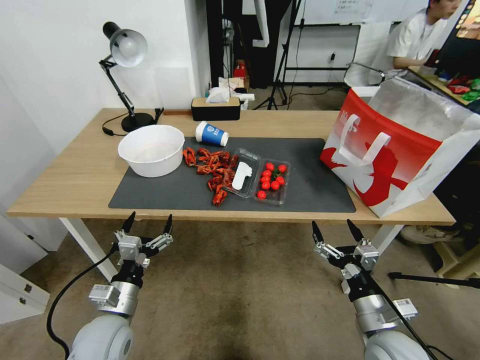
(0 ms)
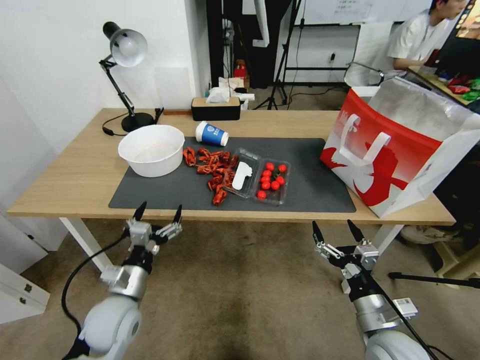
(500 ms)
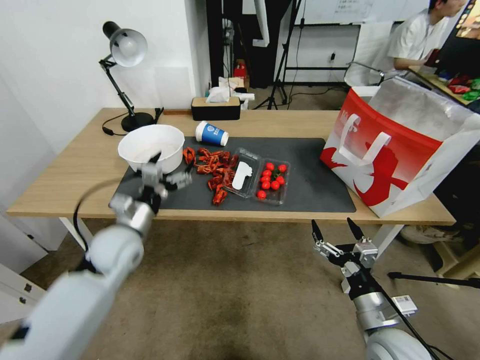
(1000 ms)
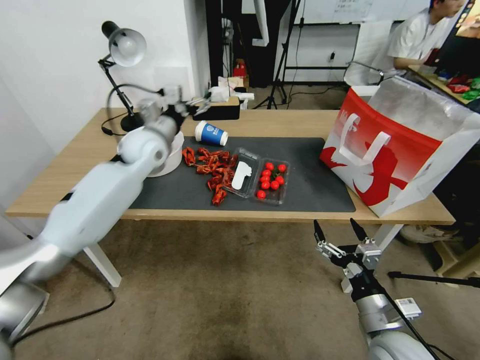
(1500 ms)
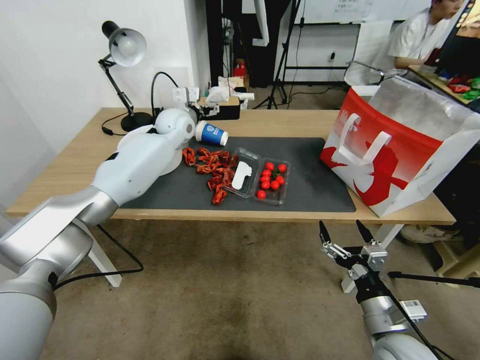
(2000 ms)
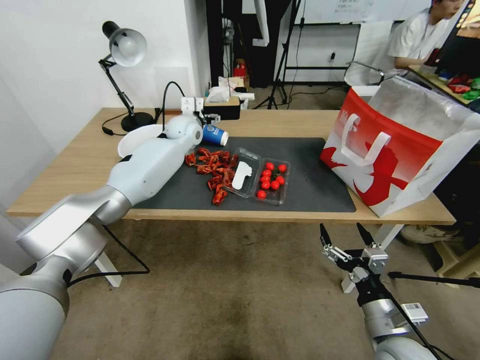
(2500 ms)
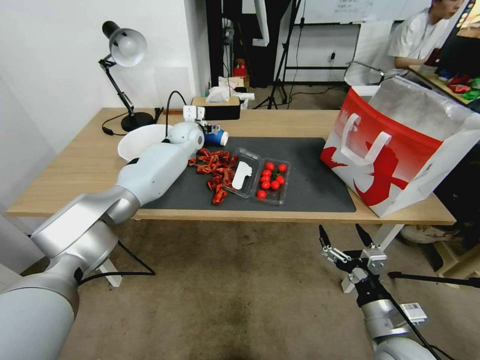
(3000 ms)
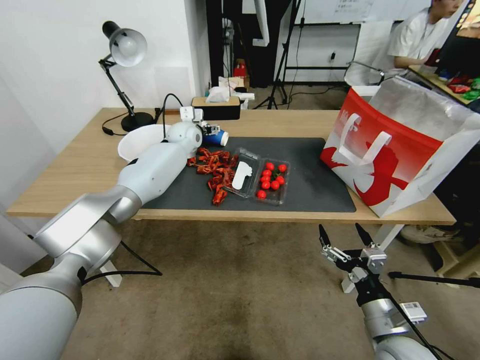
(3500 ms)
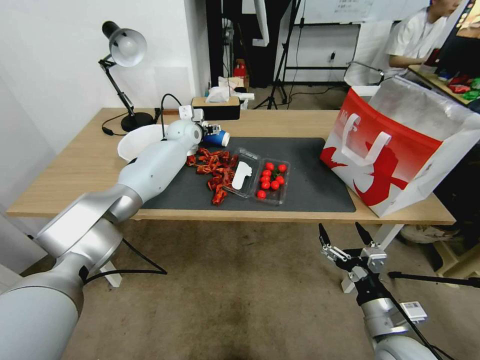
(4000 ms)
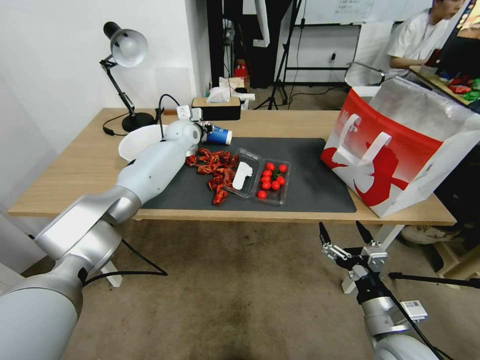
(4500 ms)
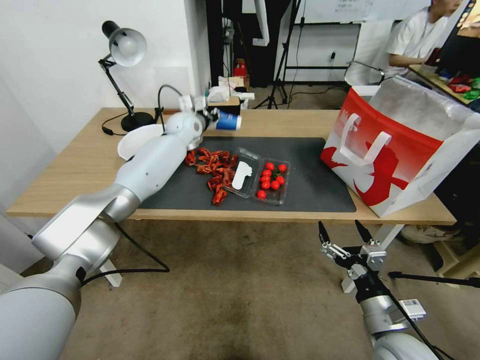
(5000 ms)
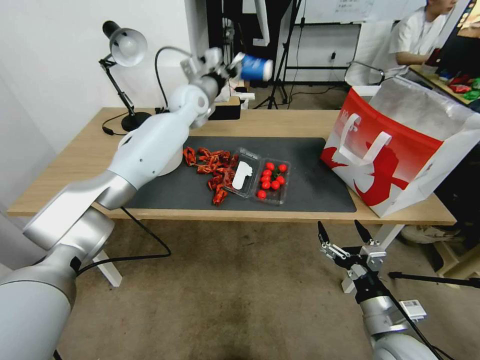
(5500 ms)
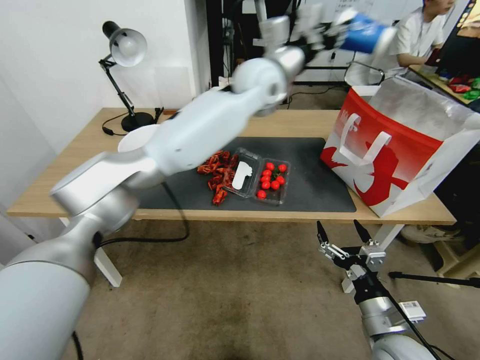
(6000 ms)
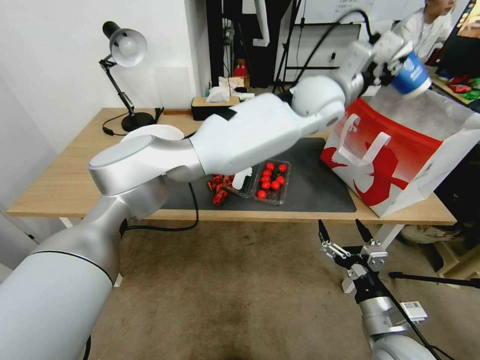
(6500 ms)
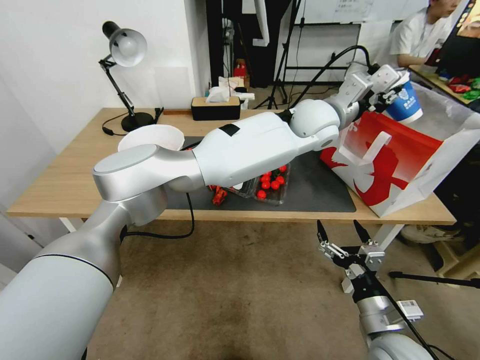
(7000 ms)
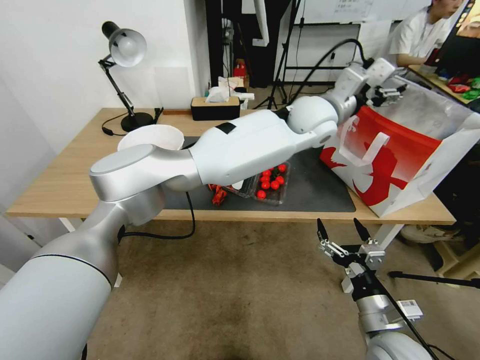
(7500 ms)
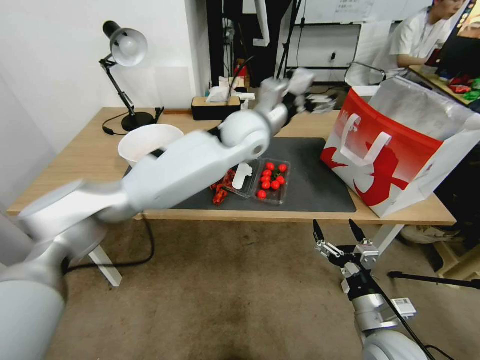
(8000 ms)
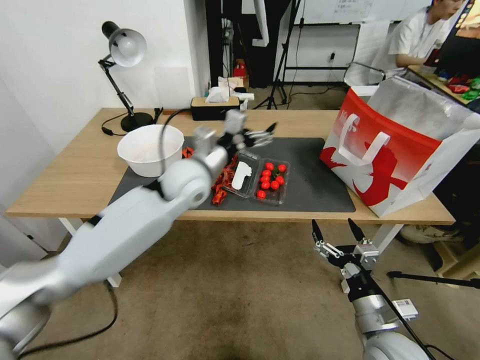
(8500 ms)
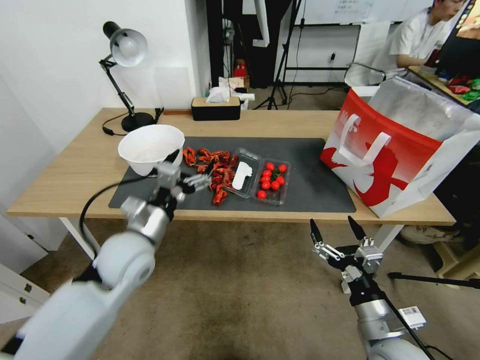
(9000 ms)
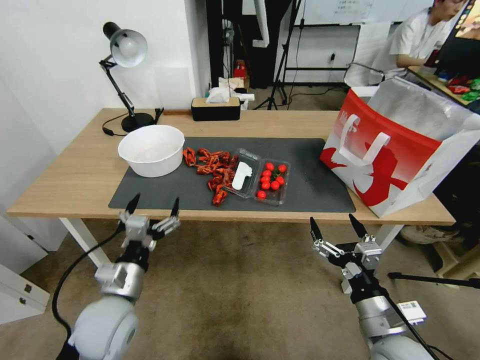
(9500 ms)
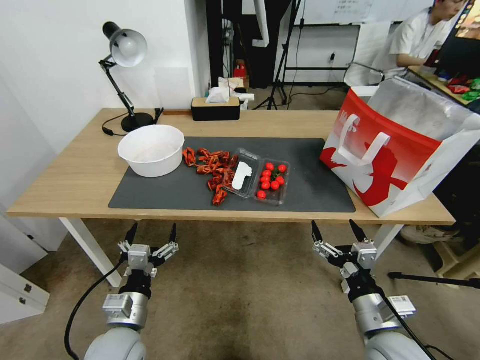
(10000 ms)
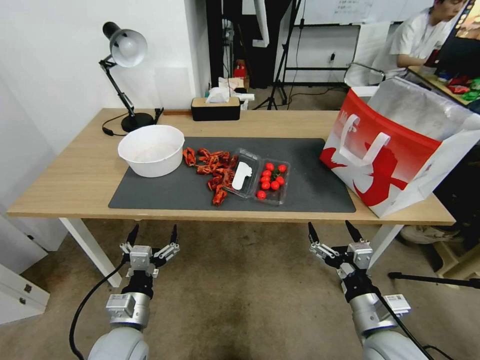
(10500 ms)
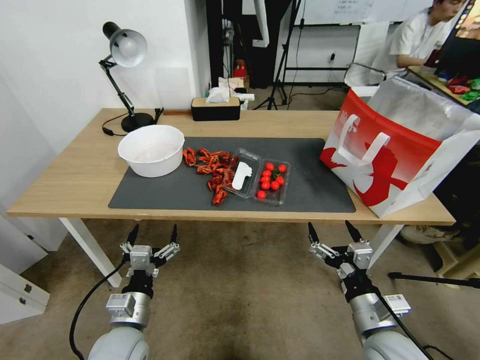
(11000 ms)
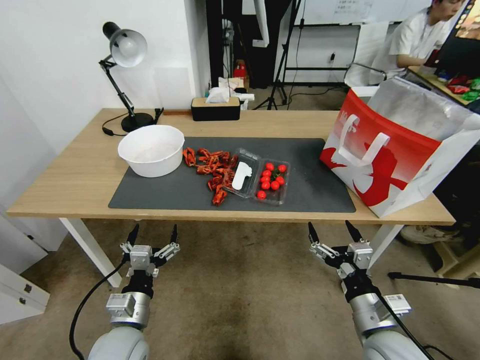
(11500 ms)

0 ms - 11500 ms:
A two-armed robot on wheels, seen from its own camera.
0 ms - 2000 ms: The left gripper shifts about 50 cm forward and upward.
2000 ms - 4000 ms: The left gripper heads downward, covering some 5 cm.
4000 ms - 6000 ms: The left gripper moves to the right, upward and backward, about 30 cm, and closes its fingers.
6000 ms - 7500 ms: The left gripper shifts some 10 cm to the right and downward, and opens its fingers.
7500 ms - 9500 ms: The left gripper is displaced to the left, backward and downward by about 60 cm.
9500 ms - 11500 ms: The left gripper shifts approximately 5 cm downward.
